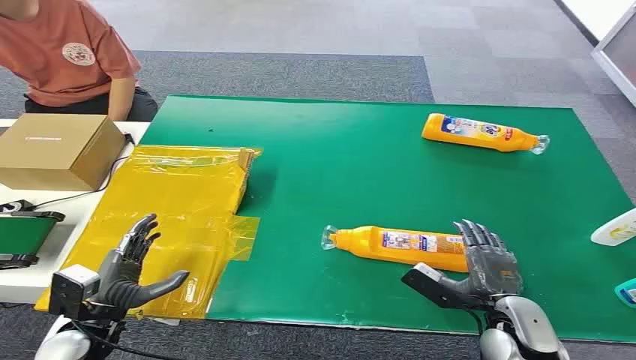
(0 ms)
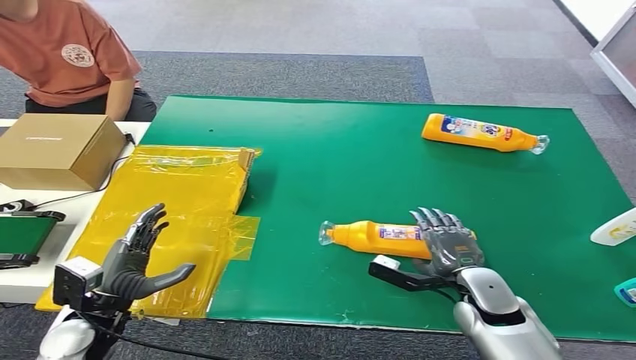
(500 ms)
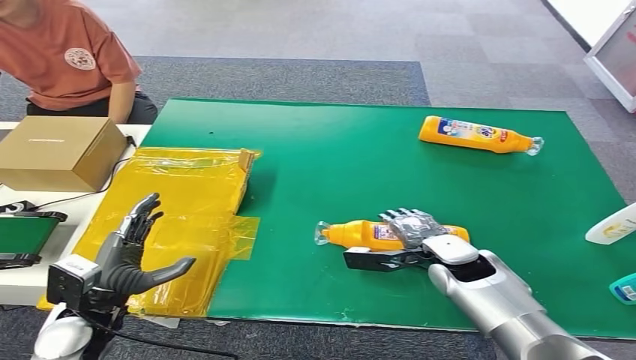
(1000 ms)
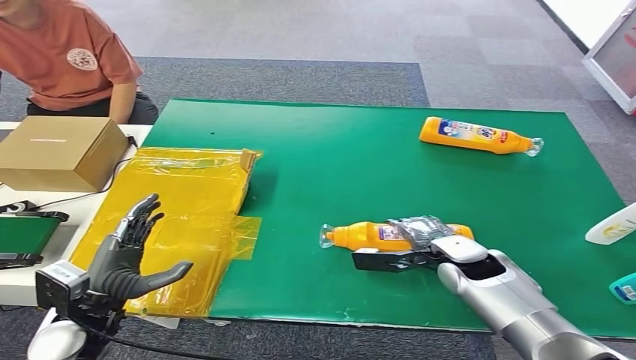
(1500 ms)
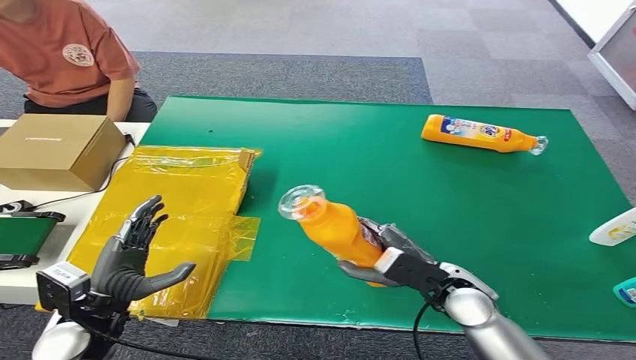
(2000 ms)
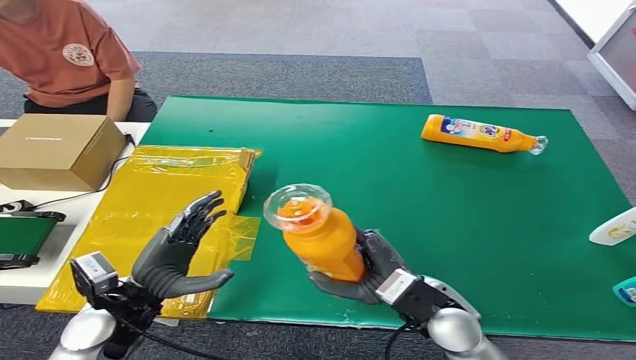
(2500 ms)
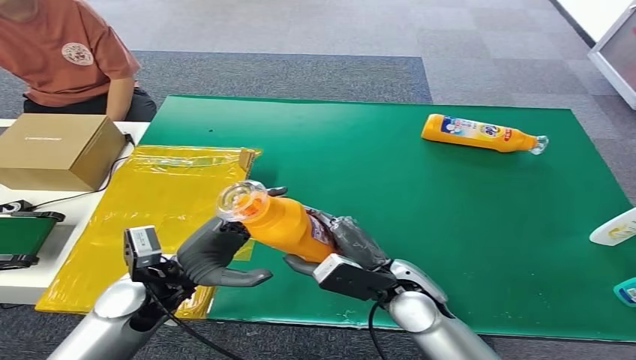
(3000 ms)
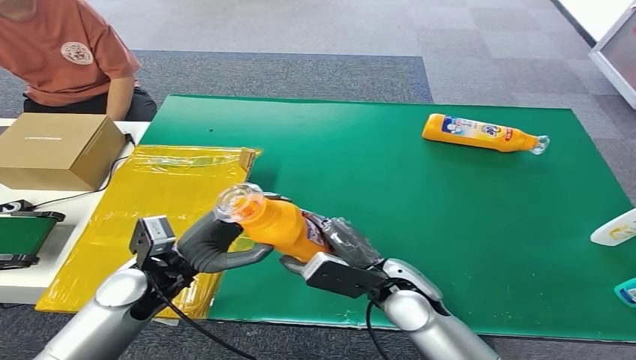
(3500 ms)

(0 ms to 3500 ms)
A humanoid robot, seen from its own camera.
Step, 0 ms - 2000 ms: Pick up the bottle from the table.
Step, 2500 ms - 3500 ms: Turn the bottle to the front side.
2000 ms - 3500 ms: The right hand shifts some 10 cm to the left; the left hand is displaced to the right and forward by approximately 10 cm.

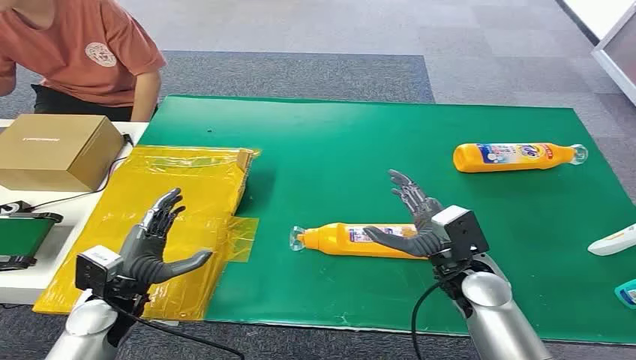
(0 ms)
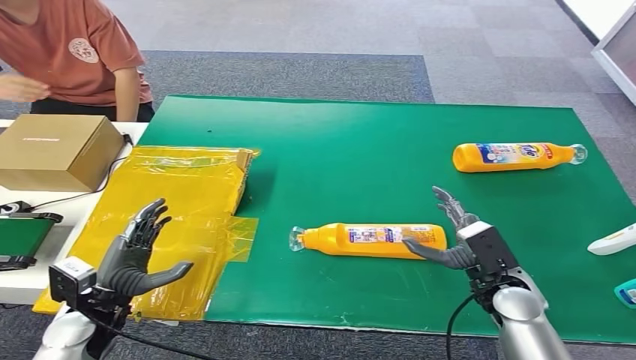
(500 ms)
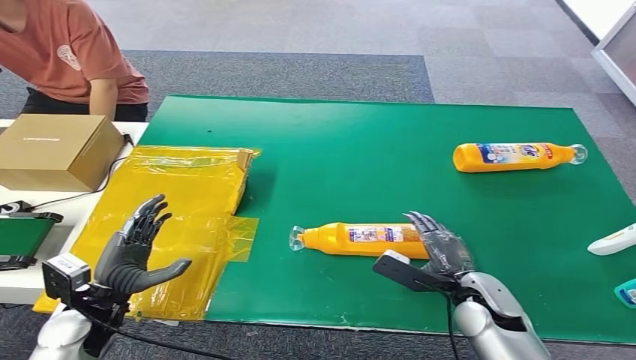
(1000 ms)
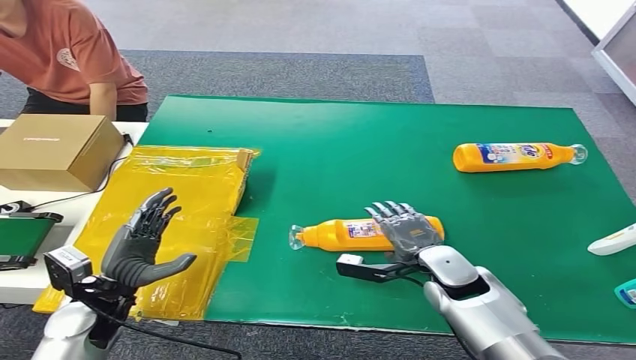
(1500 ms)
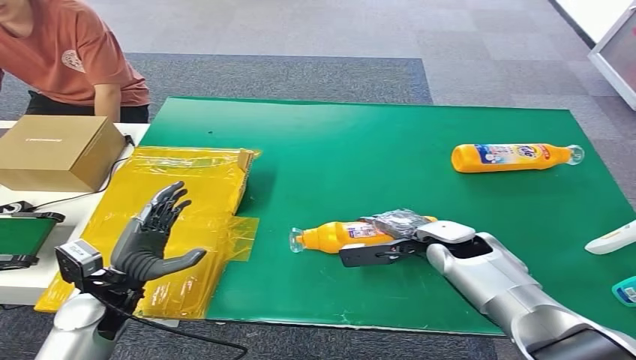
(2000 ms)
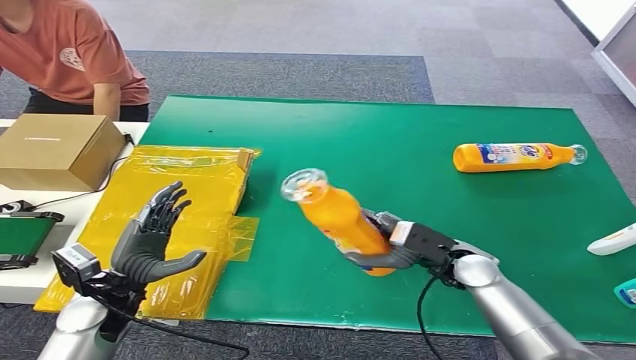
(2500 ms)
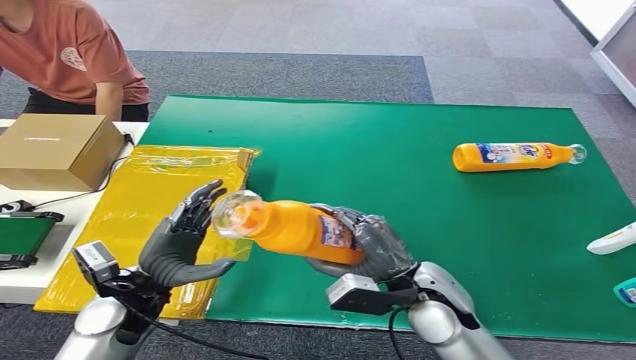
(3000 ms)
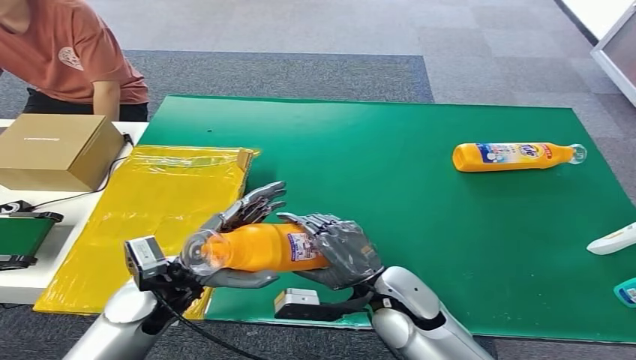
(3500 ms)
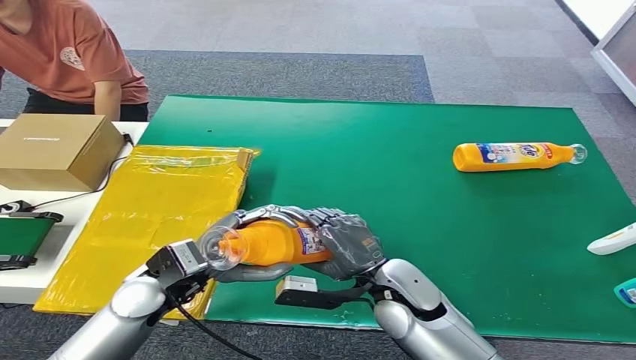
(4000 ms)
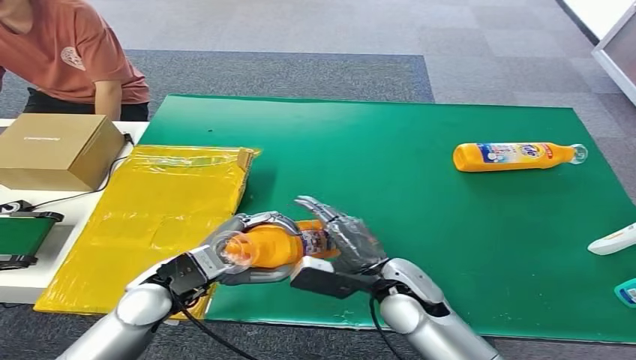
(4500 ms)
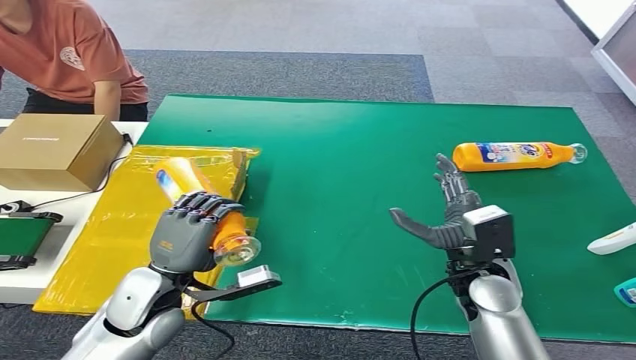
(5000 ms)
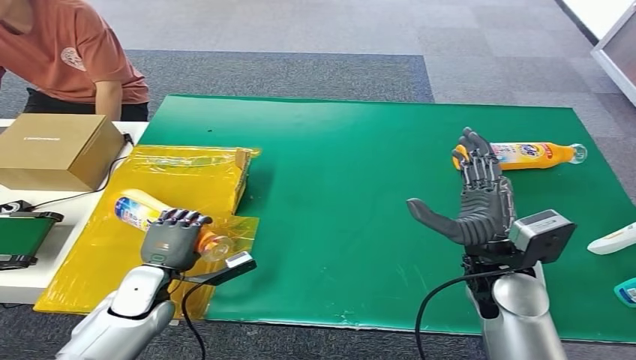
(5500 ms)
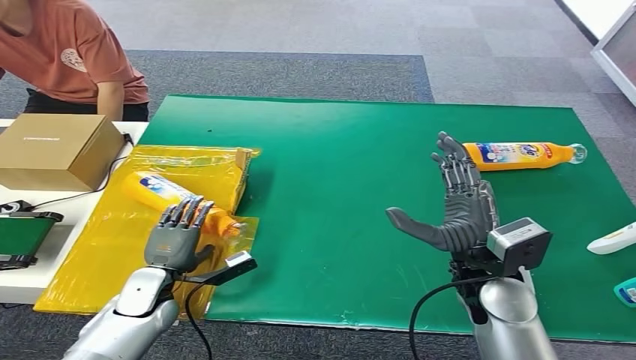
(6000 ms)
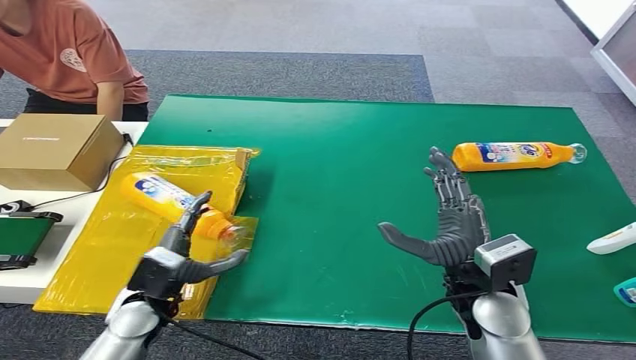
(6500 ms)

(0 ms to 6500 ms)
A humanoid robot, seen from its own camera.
Step, 0 ms - 2500 ms: Pick up the bottle from the table.
Step, 3000 ms - 6500 ms: Turn the bottle to the front side.
4500 ms - 6500 ms: The right hand shifts some 10 cm to the right and upward. The left hand shifts some 5 cm downward.

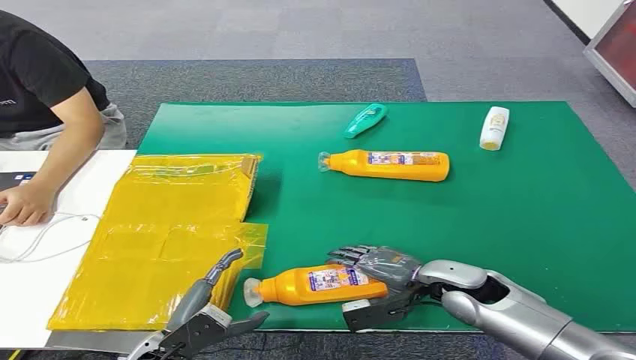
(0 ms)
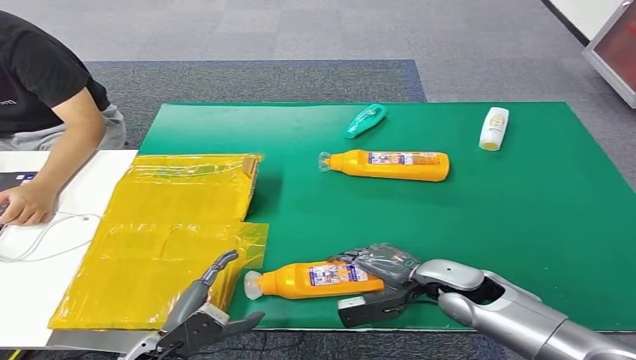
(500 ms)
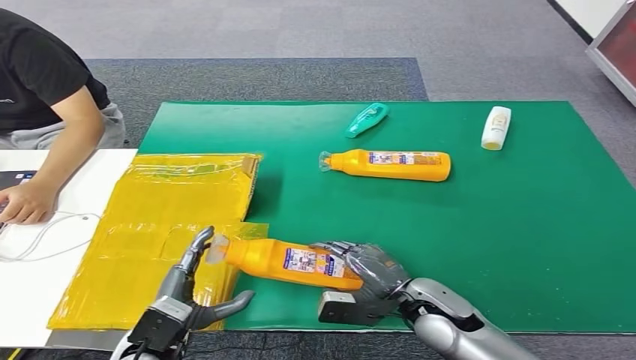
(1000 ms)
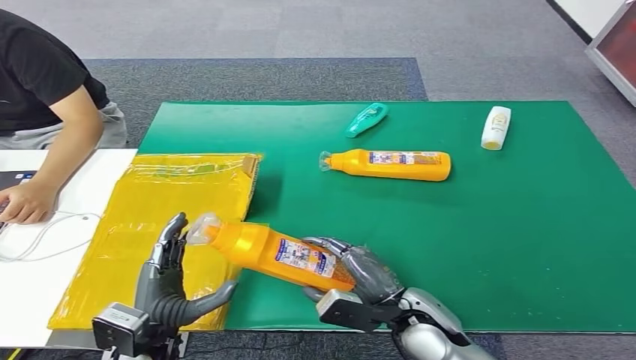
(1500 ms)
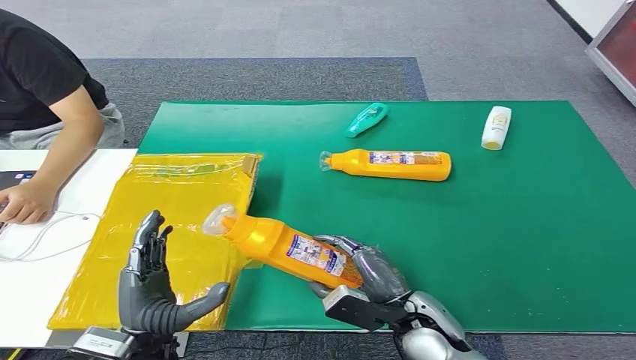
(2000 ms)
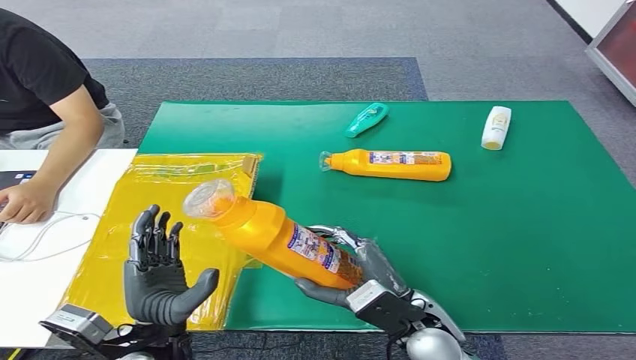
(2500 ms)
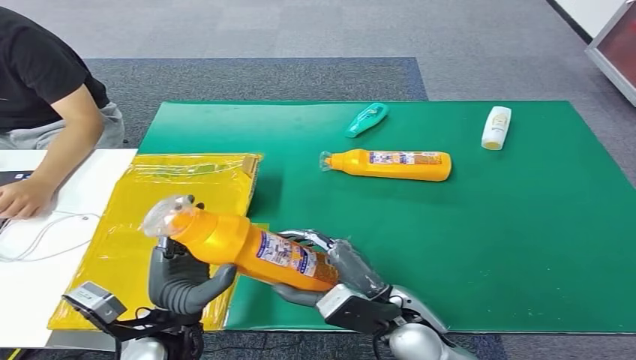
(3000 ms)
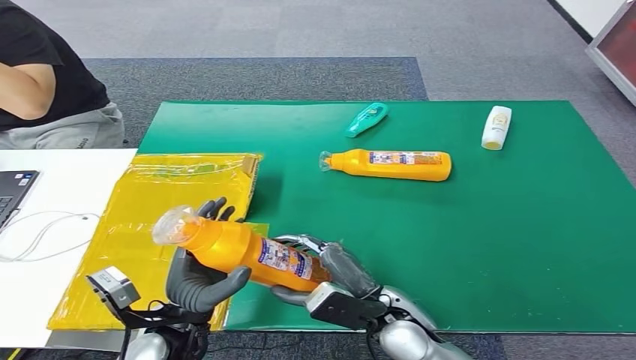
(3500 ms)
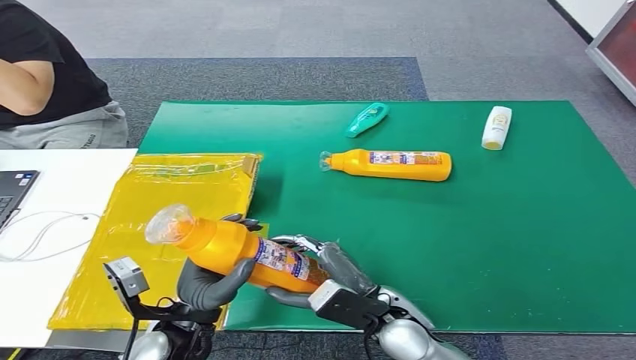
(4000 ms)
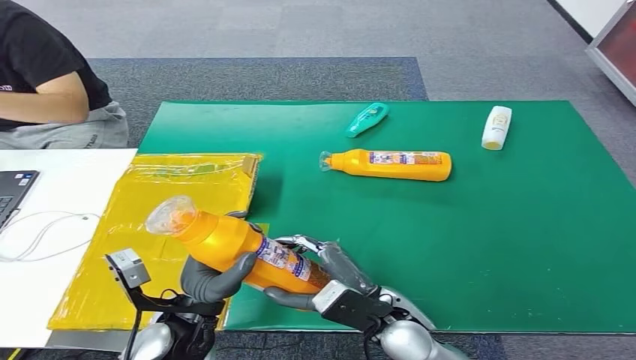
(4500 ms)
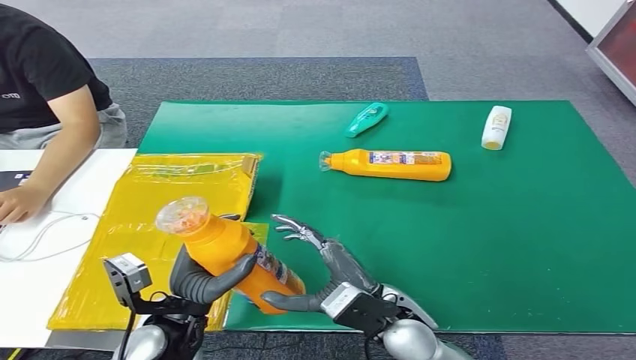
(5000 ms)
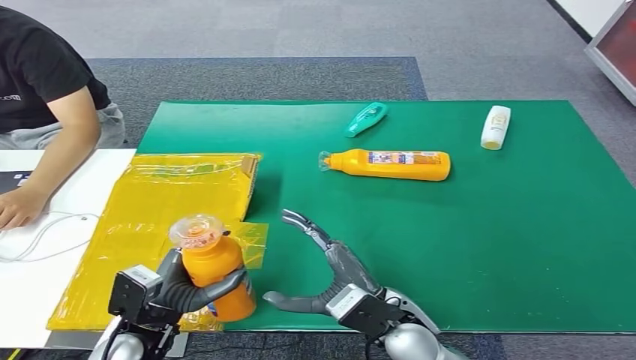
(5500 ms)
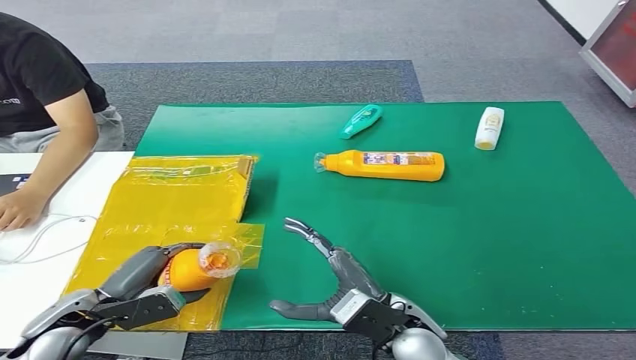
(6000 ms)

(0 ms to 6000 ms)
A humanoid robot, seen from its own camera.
Step, 0 ms - 1000 ms: Pick up the bottle from the table.
Step, 2000 ms - 6000 ms: Turn the bottle to the front side.
2000 ms - 4000 ms: The right hand shifts by about 5 cm.
